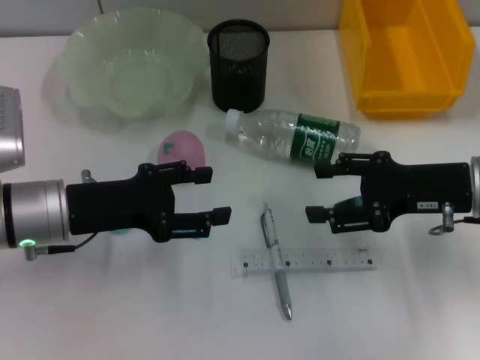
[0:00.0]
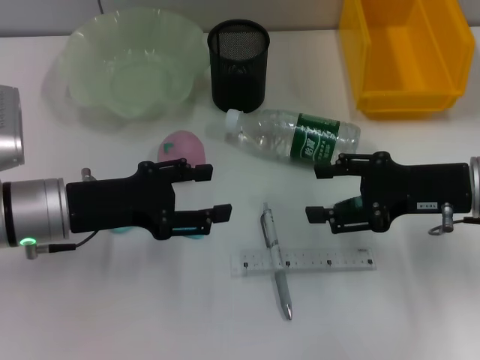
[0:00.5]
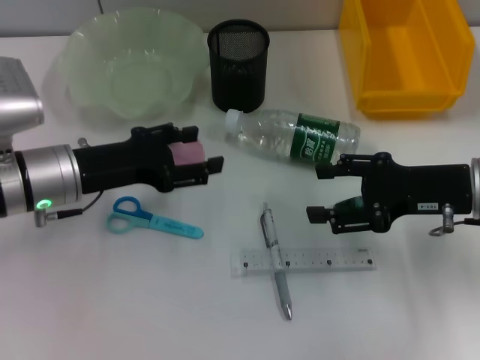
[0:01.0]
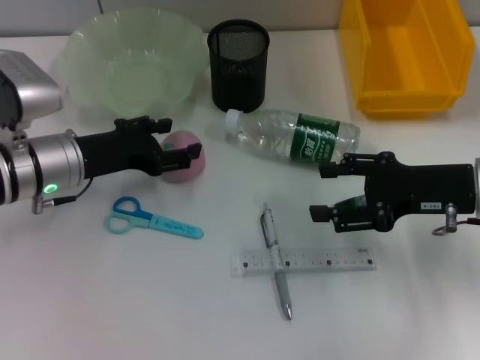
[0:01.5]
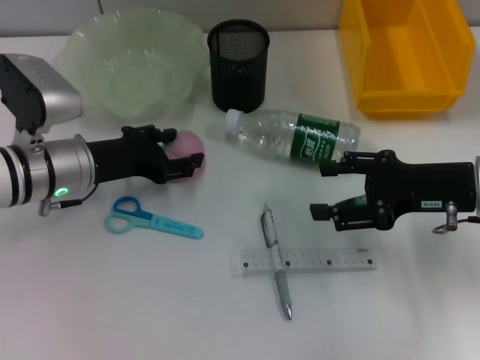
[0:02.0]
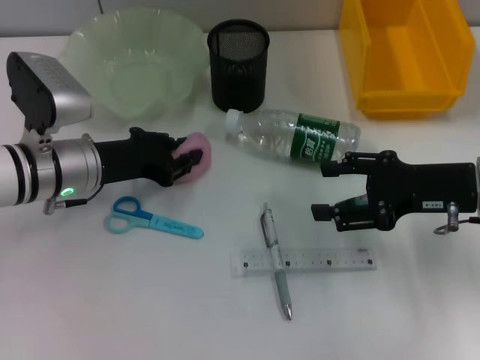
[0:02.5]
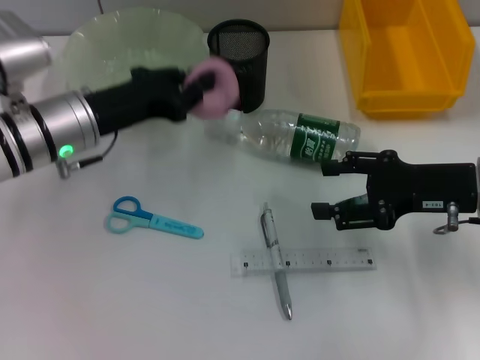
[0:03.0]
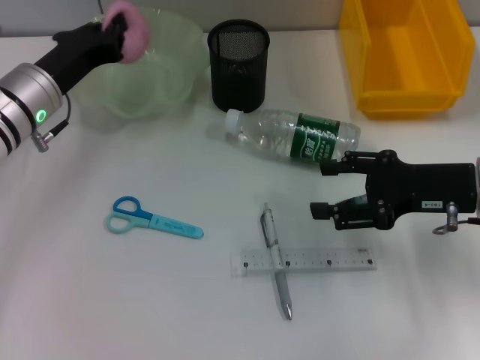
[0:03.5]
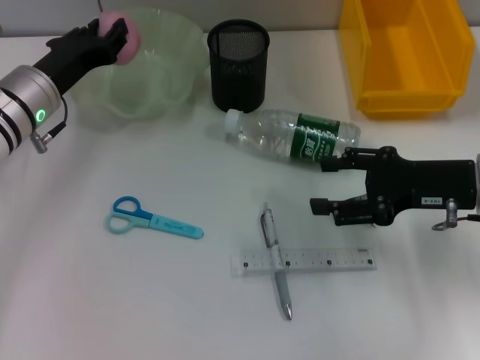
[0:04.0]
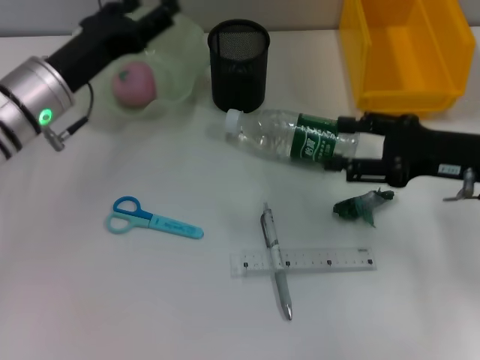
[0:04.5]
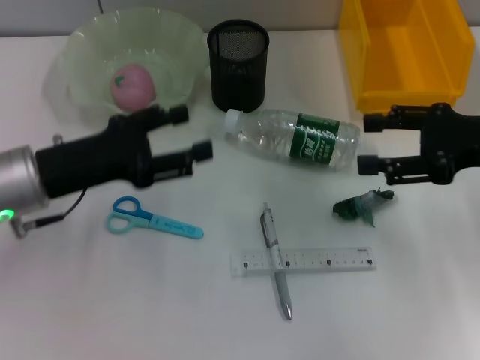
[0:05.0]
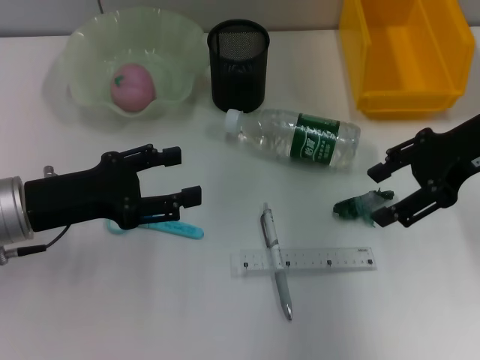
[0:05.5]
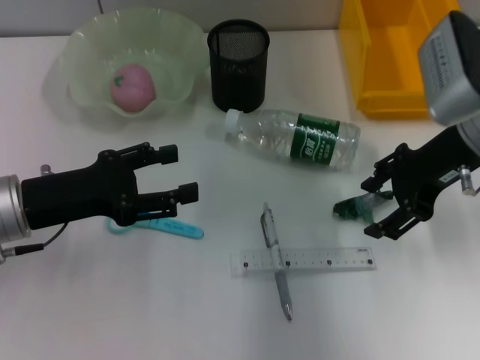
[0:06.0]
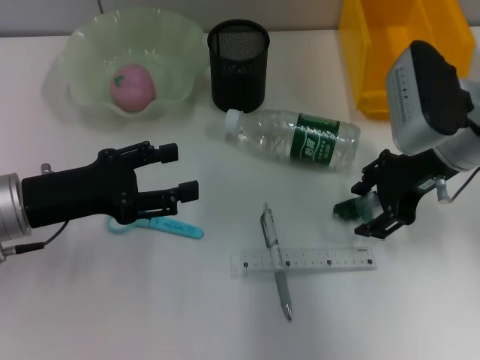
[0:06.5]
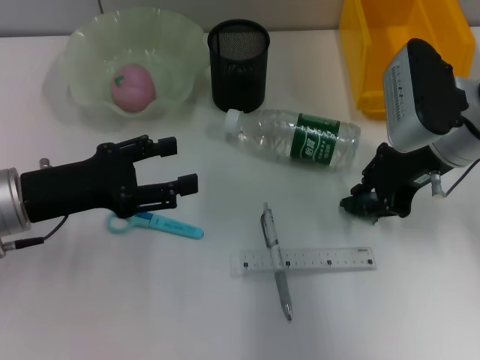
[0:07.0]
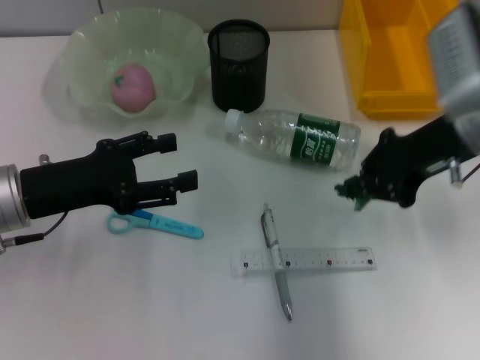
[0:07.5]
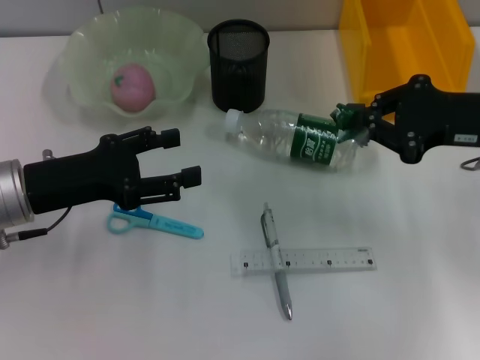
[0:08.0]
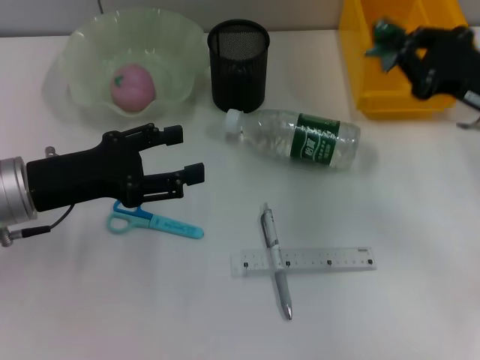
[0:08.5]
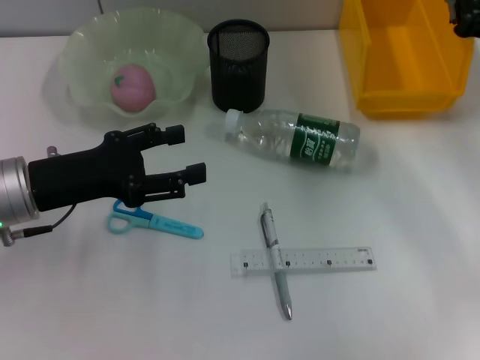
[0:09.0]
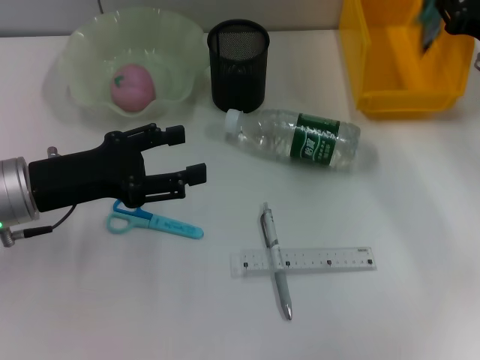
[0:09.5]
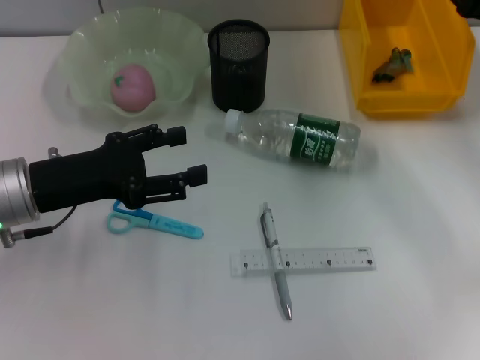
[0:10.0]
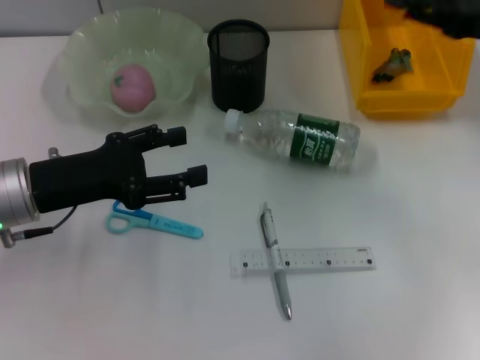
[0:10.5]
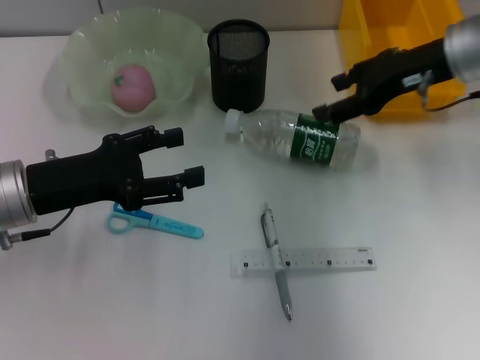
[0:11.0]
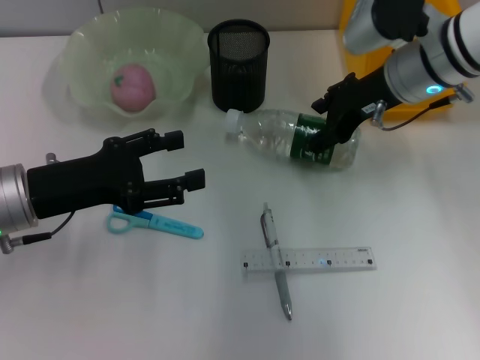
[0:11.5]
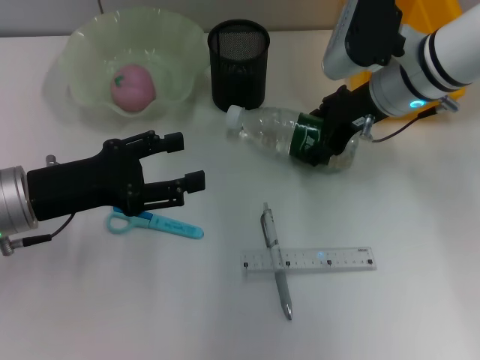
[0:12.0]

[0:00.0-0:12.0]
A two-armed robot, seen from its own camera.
Step, 0:00.0 to 0:02.0: Grab the peach with the left hand.
Step, 0:02.5 to 0:04.0: Place the peach into the fruit bowl with the left hand.
Step, 0:04.5 to 0:07.0: Grab the plastic with the right hand.
Step, 0:07.5 to 0:09.5: Place the plastic into the trash can with the right hand.
0:00.0 to 0:02.0: The left gripper moves forward, roughly 5 cm.
0:02.0 to 0:04.0: The left gripper shifts by approximately 5 cm, and closes.
0:04.0 to 0:06.0: The right gripper shifts roughly 10 cm upward and forward. The left gripper moves backward, about 10 cm, and opens.
0:06.0 to 0:08.0: The right gripper travels to the right by roughly 5 cm, and closes up.
0:08.0 to 0:10.0: The right gripper travels forward by roughly 5 cm, and opens its fingers.
0:10.0 to 0:12.0: The right gripper shifts some 15 cm to the left.

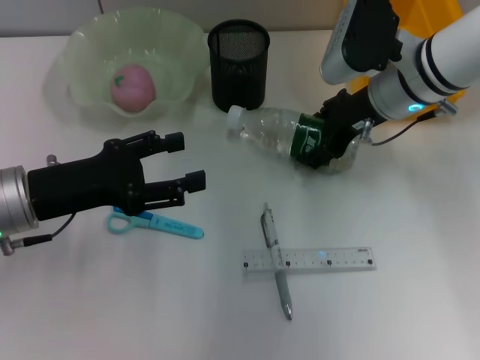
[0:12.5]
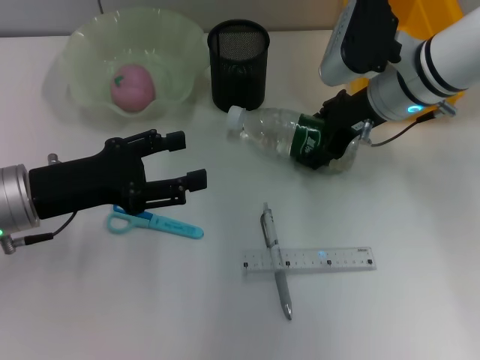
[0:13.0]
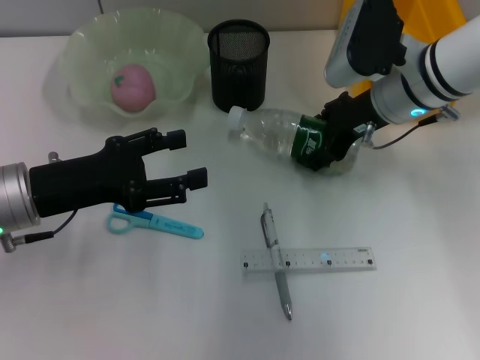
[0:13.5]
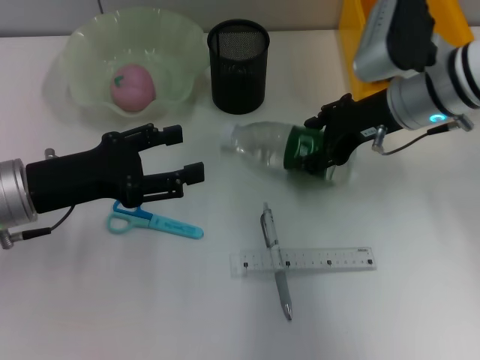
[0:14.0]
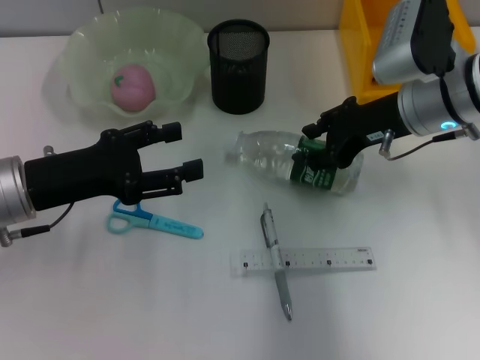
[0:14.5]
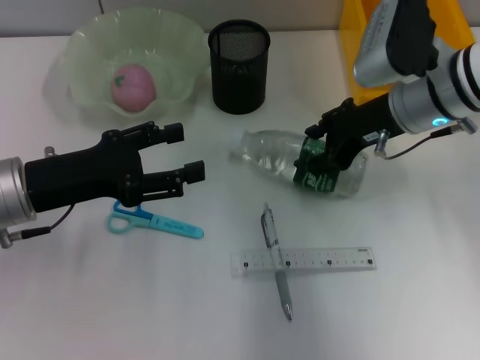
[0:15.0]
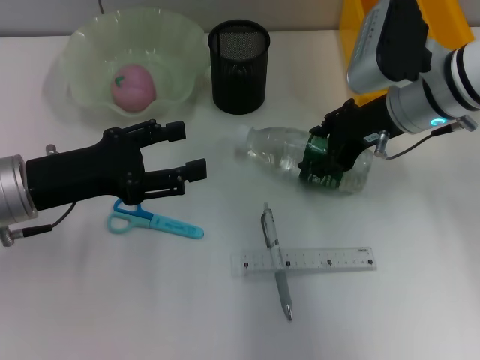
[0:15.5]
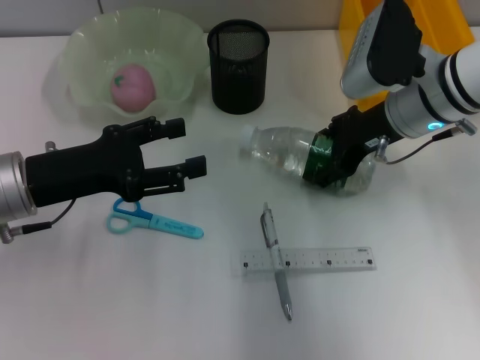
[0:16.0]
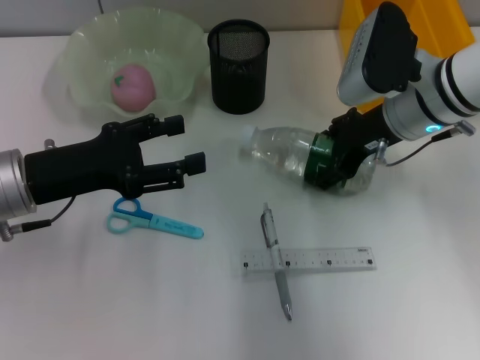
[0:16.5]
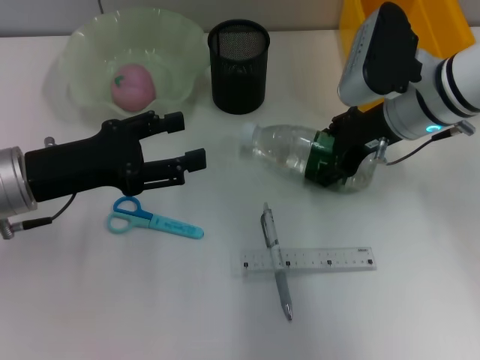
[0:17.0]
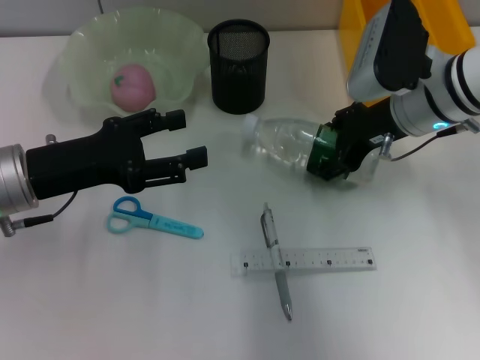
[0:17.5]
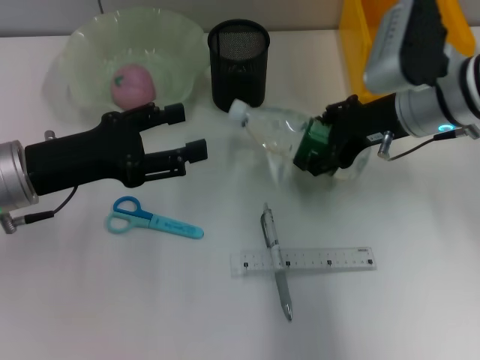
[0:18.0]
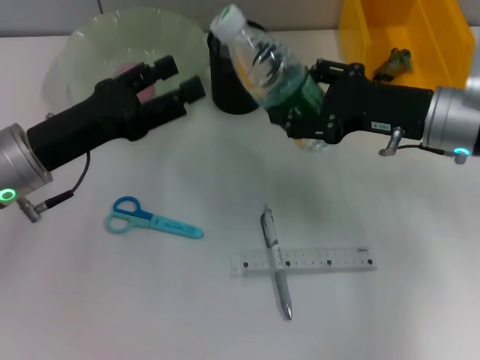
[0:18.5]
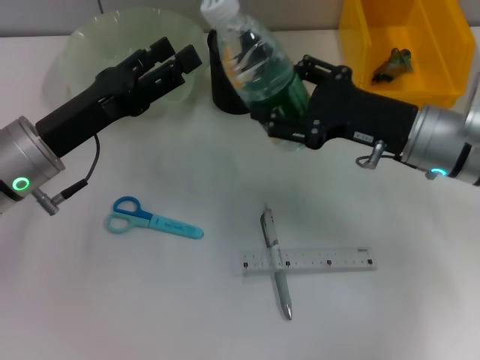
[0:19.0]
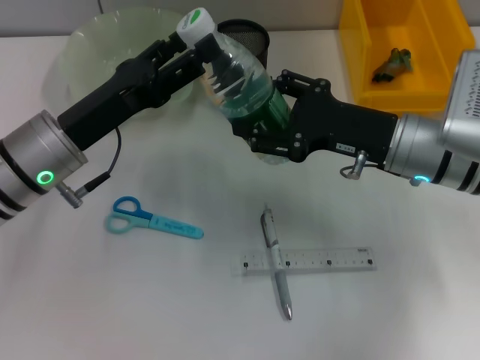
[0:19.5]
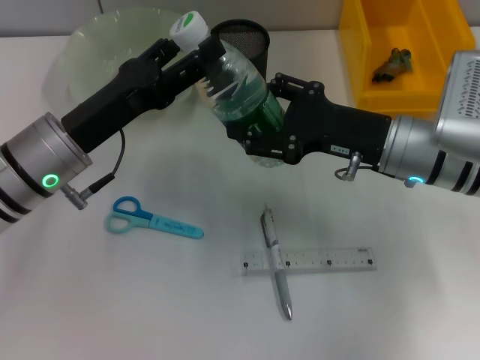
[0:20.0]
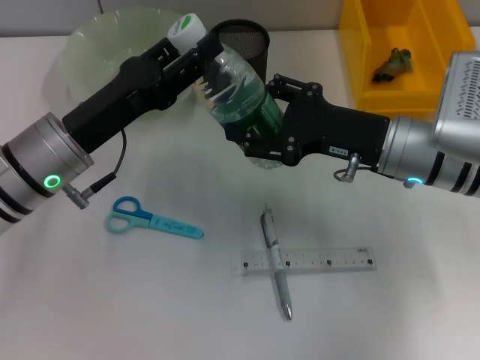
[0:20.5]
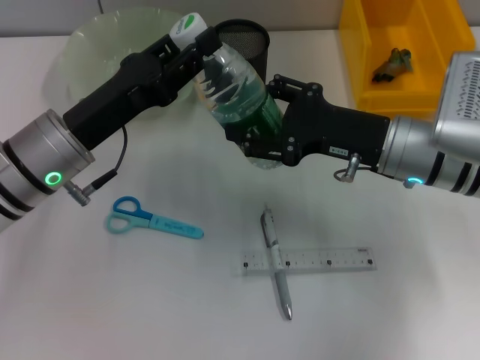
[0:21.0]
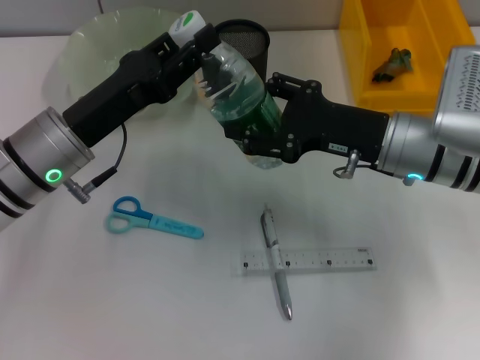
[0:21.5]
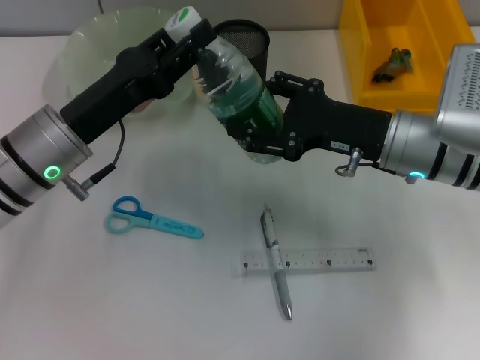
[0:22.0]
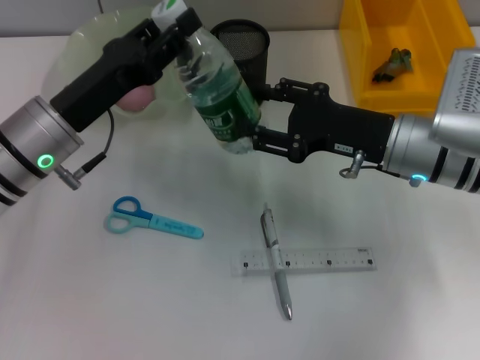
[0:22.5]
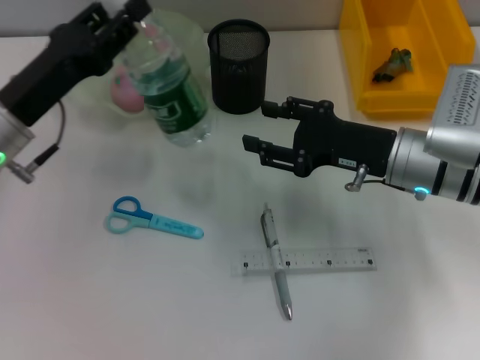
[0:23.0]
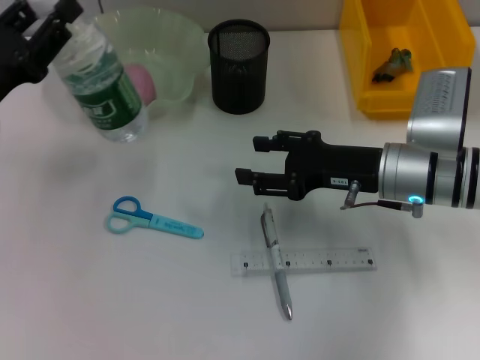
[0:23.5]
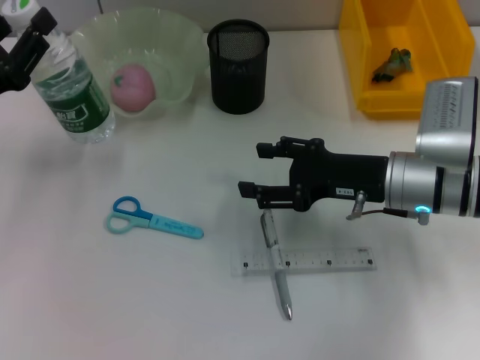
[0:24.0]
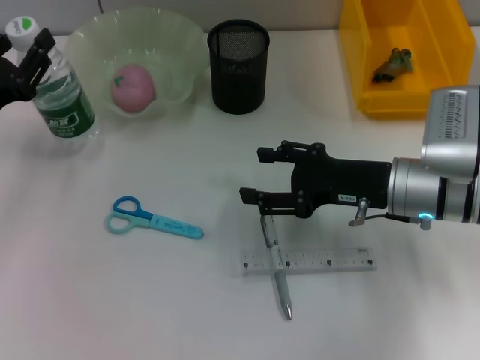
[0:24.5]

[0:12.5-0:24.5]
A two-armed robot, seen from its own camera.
Step, 0:12.5 to 0:17.0: Grab the water bottle with the right hand.
Step, 0:17.5 to 0:22.5: Pass the water bottle from the right hand to the left hand.
0:14.5 to 0:16.5: There are only small adjustments of the grippers.
0:16.5 to 0:18.5: The right gripper moves approximately 5 cm.
0:20.5 to 0:22.5: The grippers stay close to where they were, moving slightly.
0:22.5 to 0:24.5: The left gripper travels to the left by roughly 10 cm.

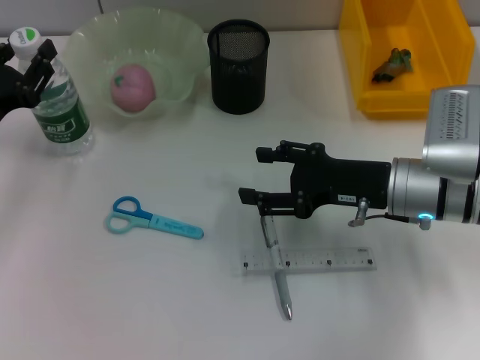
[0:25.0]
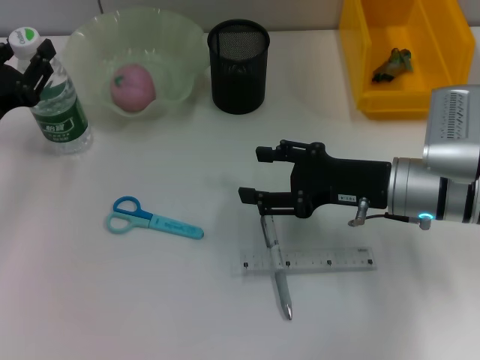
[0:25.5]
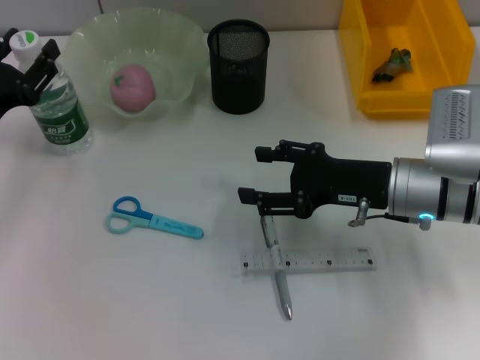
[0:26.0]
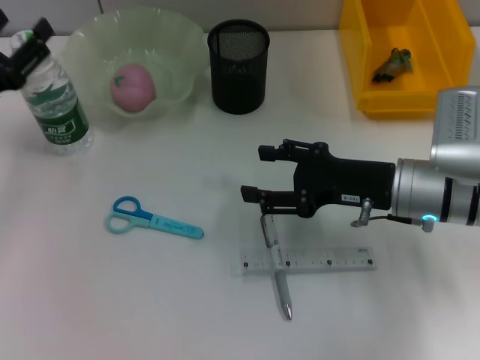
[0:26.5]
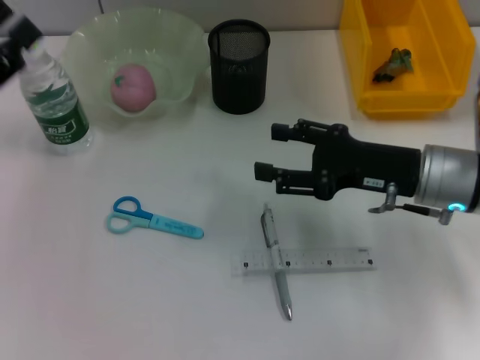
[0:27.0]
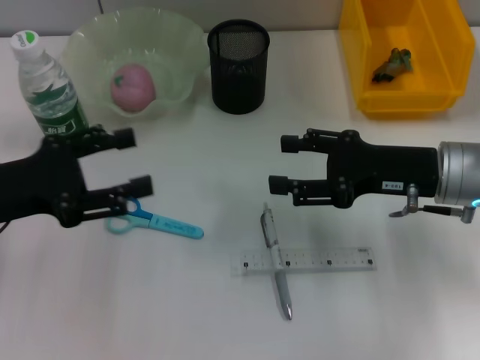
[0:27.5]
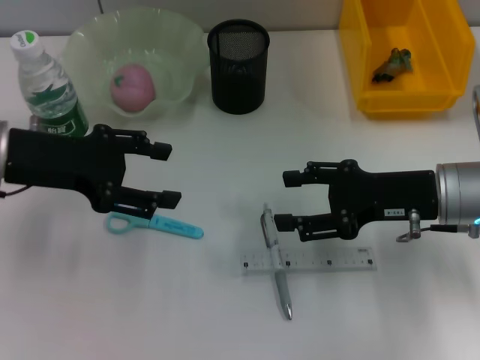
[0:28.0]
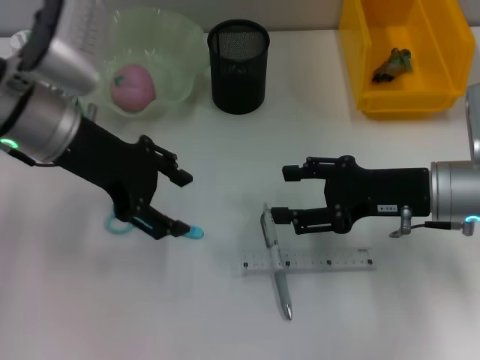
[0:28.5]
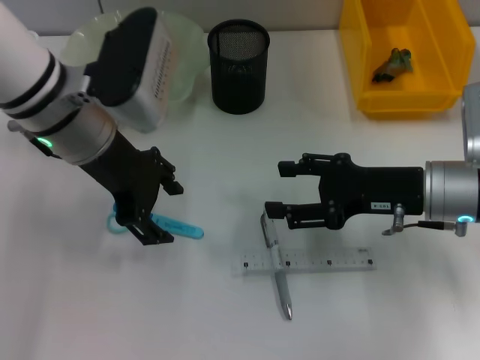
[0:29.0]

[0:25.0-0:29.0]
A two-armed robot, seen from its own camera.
0:25.0 to 0:27.0: The left gripper is displaced upward by some 5 cm, and opens up.
0:27.0 to 0:29.0: The left gripper is displaced to the right and forward by some 20 cm.
